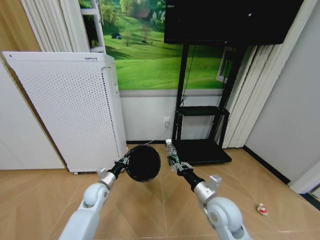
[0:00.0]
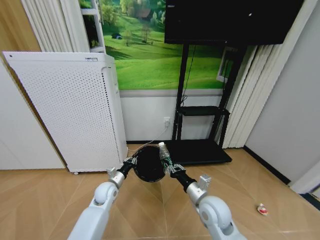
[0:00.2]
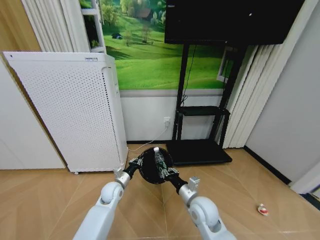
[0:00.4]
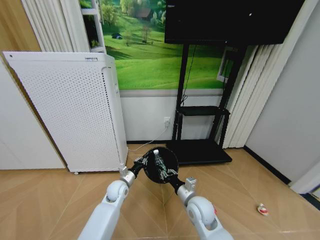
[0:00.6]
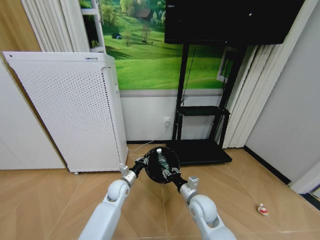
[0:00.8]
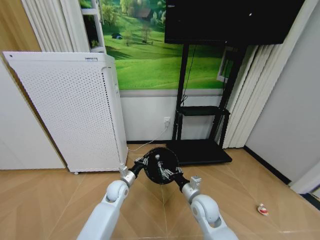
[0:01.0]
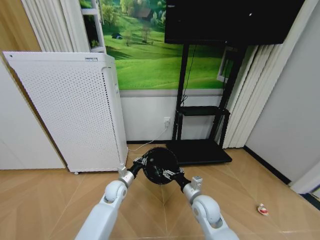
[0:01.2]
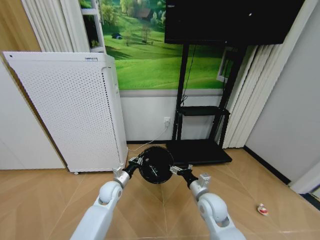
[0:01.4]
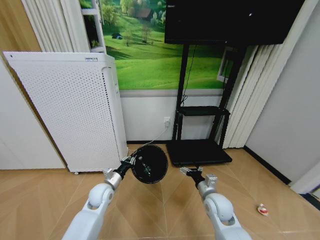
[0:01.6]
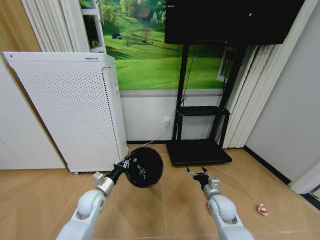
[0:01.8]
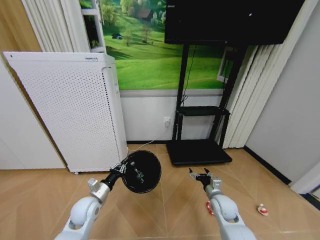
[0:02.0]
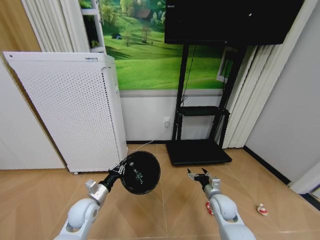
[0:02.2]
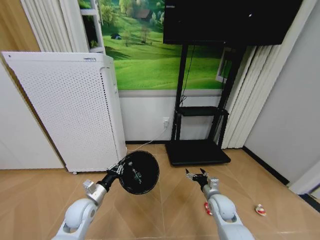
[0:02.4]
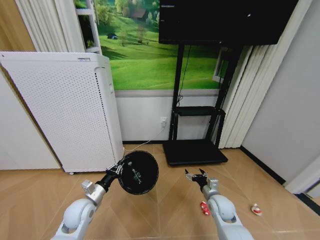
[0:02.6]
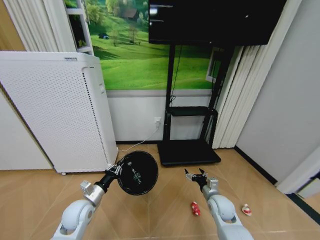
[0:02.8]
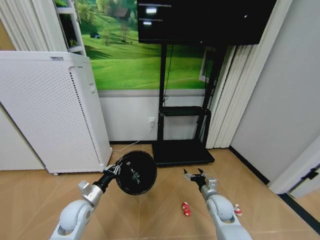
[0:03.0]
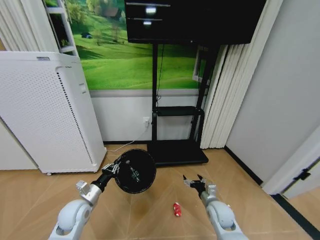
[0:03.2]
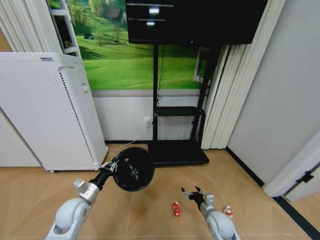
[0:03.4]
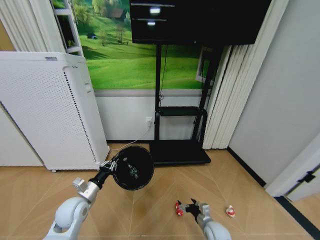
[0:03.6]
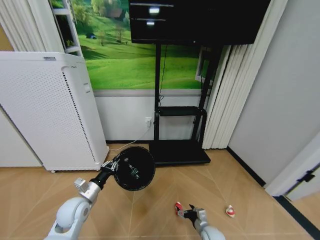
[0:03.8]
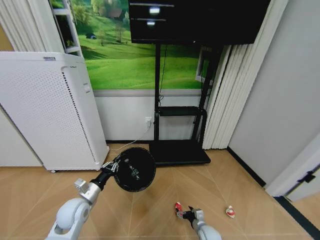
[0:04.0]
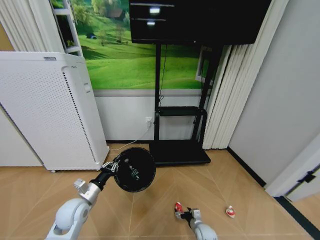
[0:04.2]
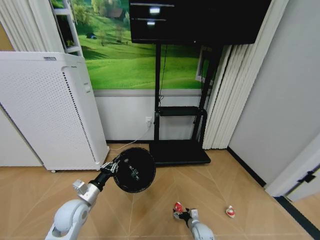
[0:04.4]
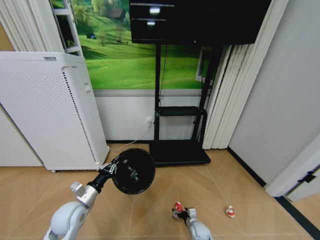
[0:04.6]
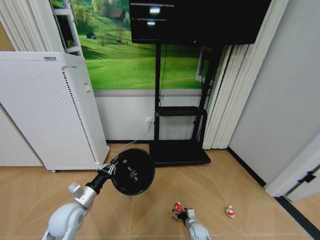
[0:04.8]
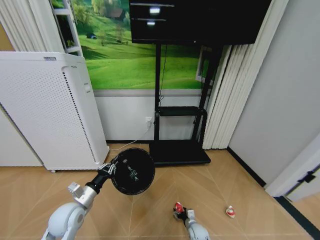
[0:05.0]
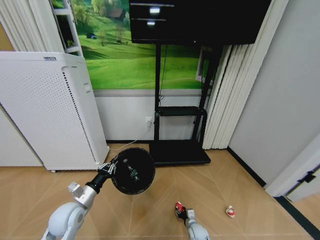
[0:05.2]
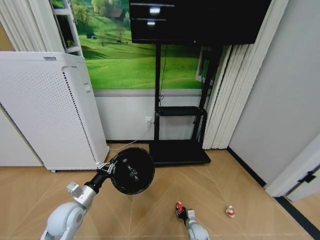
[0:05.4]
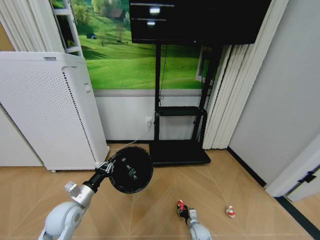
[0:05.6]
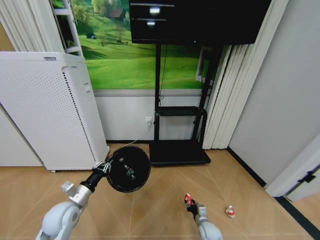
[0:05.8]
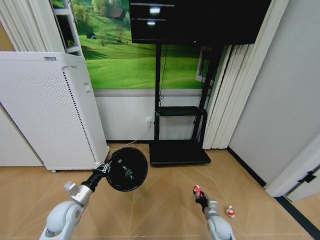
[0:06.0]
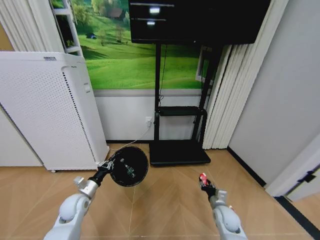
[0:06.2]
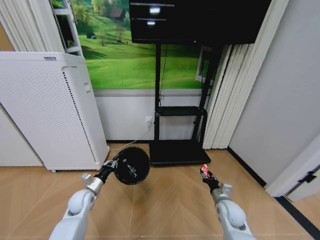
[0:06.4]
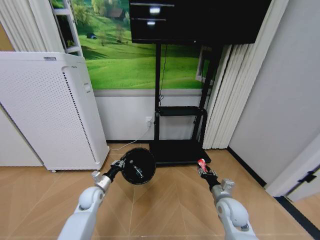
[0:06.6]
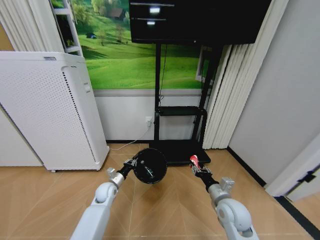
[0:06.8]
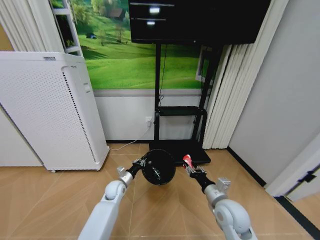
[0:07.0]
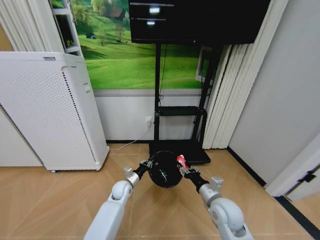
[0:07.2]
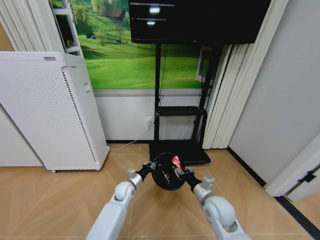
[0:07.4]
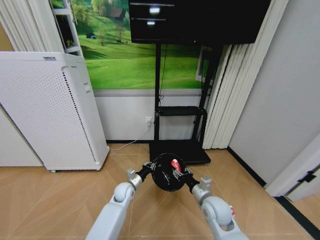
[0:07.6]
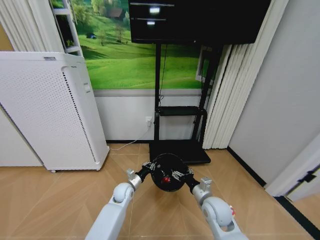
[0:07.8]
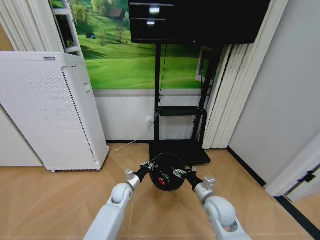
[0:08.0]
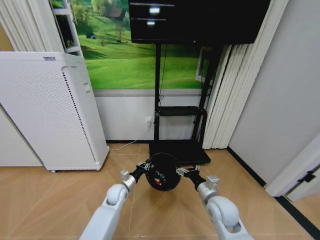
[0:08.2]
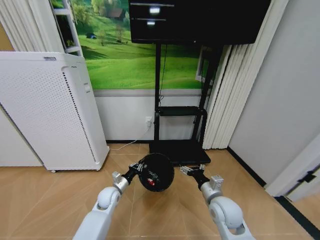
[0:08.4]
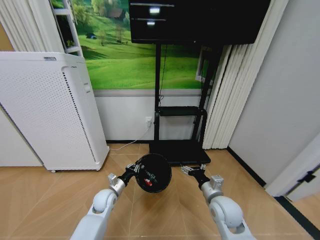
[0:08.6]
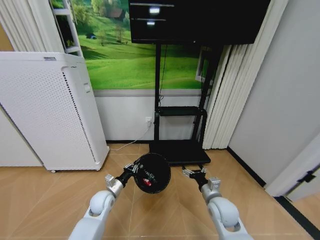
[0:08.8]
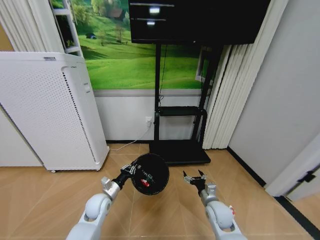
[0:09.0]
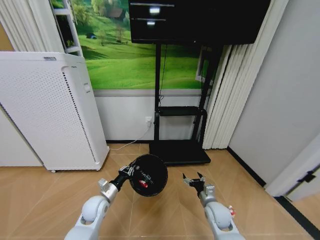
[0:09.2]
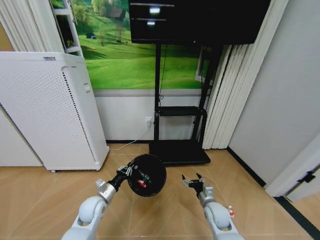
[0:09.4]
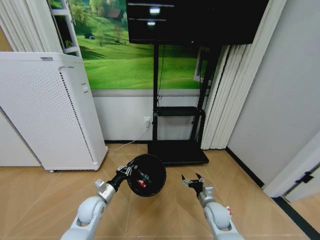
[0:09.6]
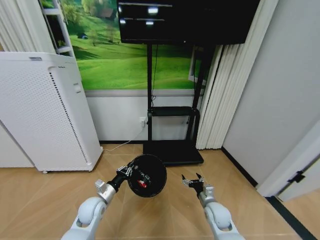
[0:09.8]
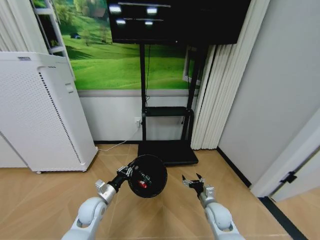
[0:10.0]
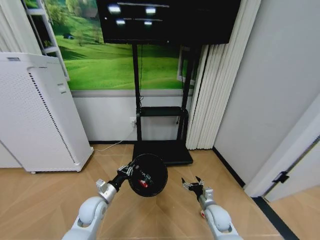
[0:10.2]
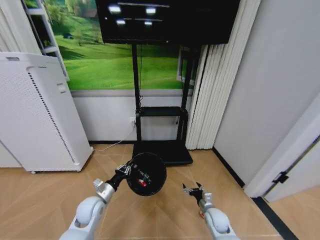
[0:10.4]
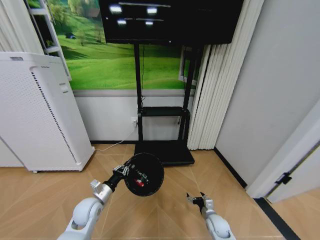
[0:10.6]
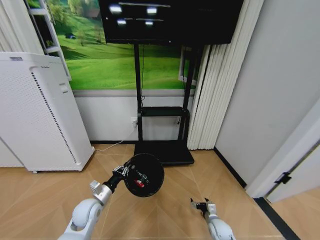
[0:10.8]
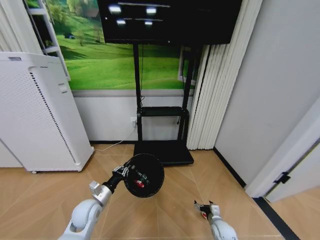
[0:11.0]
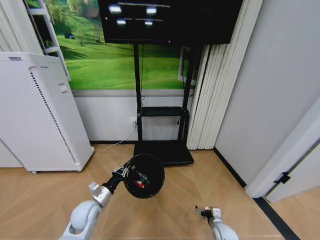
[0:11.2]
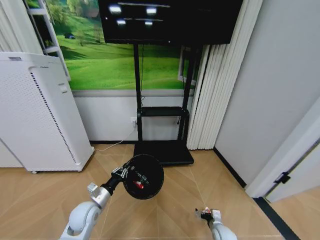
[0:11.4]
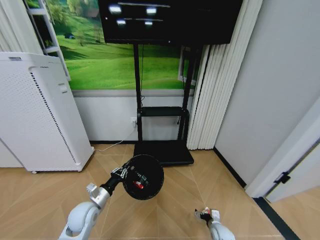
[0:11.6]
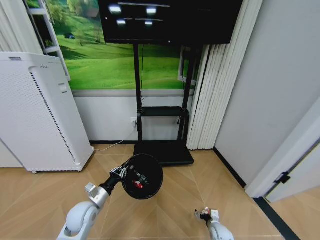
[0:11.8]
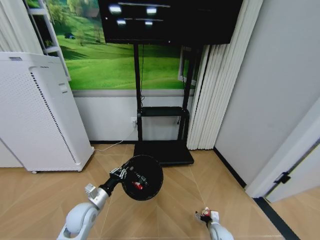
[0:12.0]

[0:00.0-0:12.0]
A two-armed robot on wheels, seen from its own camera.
Task of the whole recording: Pick up the trash bin and place the garbage on the floor into it.
0:00.0 to 0:01.6: The right gripper moves downward, some 5 cm, and opens up; the left gripper moves approximately 10 cm to the right and comes back.
0:01.6 to 0:03.0: The right gripper moves some 5 cm; the left gripper heads backward and to the left, covering about 10 cm.
0:03.0 to 0:04.4: The right gripper shifts about 20 cm downward.
0:04.4 to 0:06.0: The right gripper is displaced upward and to the right by about 10 cm, and closes.
0:06.0 to 0:07.6: The left gripper shifts some 25 cm to the right, forward and downward. The right gripper heads upward and to the left, covering roughly 20 cm.
0:07.6 to 0:09.0: The left gripper travels to the left and backward by approximately 10 cm; the right gripper shifts by roughly 5 cm, and opens its fingers.
0:09.0 to 0:10.4: The right gripper shifts some 10 cm downward.
0:10.4 to 0:12.0: The right gripper shifts roughly 10 cm downward.

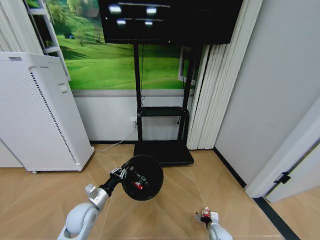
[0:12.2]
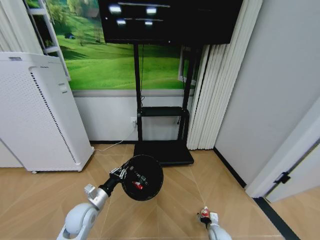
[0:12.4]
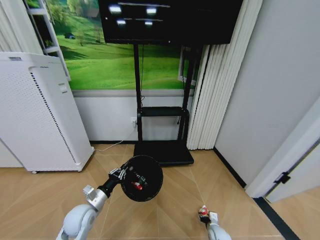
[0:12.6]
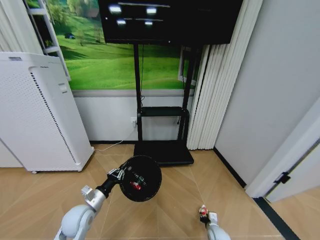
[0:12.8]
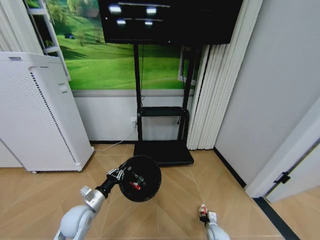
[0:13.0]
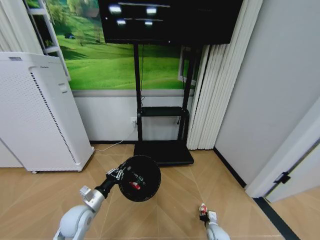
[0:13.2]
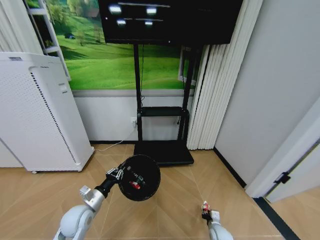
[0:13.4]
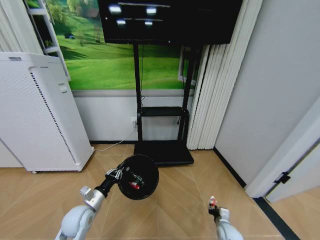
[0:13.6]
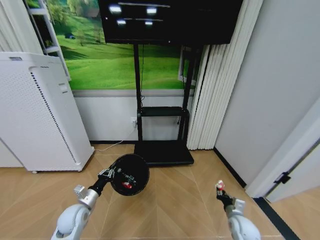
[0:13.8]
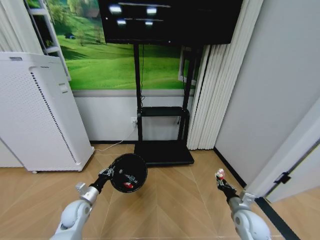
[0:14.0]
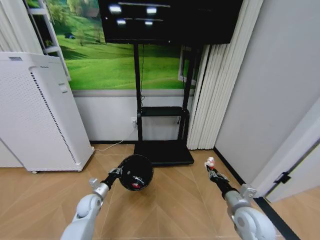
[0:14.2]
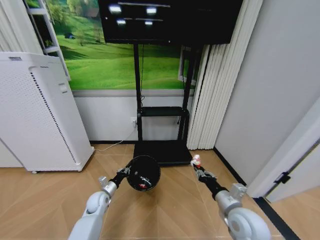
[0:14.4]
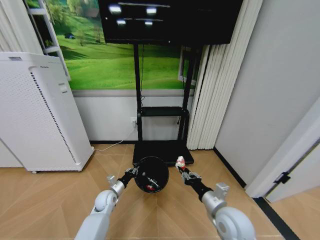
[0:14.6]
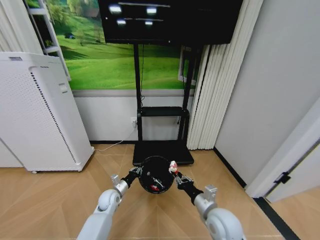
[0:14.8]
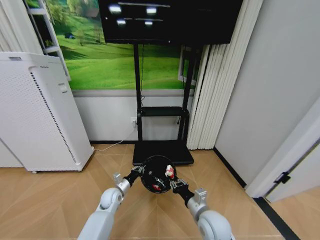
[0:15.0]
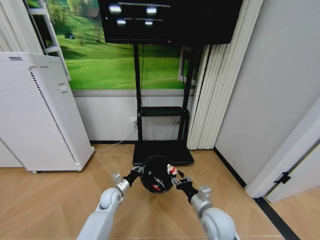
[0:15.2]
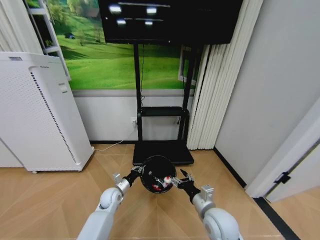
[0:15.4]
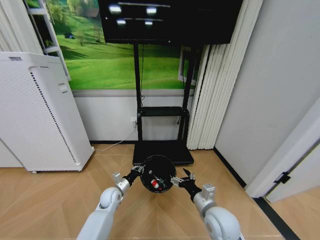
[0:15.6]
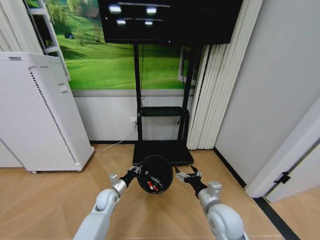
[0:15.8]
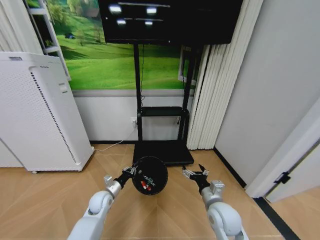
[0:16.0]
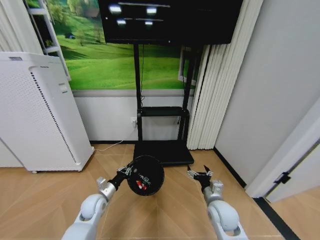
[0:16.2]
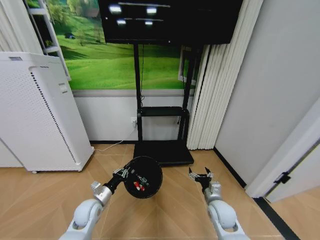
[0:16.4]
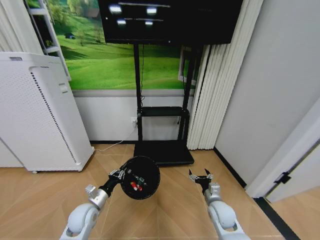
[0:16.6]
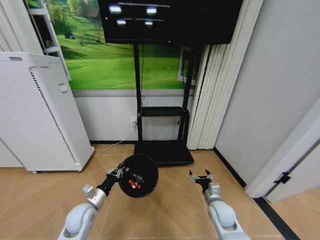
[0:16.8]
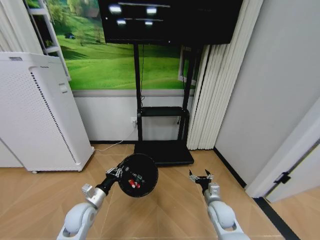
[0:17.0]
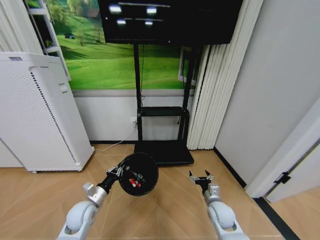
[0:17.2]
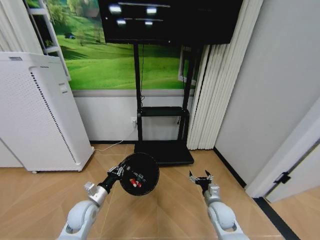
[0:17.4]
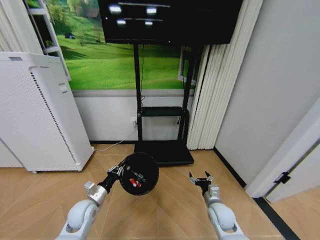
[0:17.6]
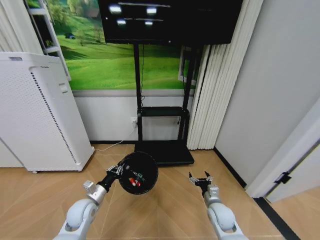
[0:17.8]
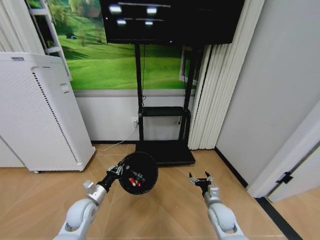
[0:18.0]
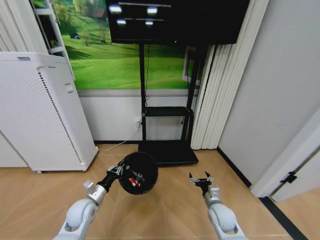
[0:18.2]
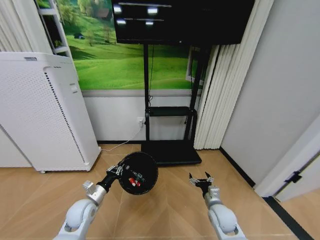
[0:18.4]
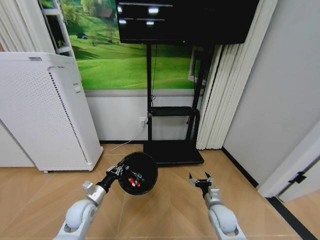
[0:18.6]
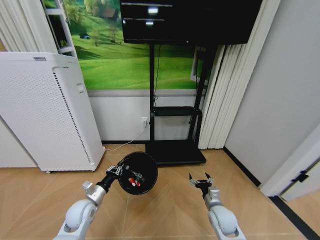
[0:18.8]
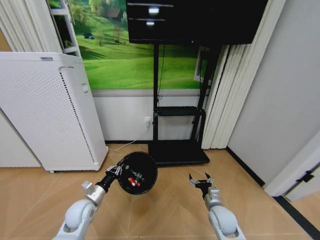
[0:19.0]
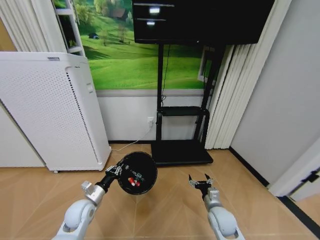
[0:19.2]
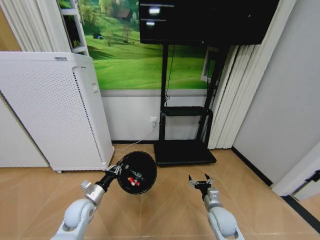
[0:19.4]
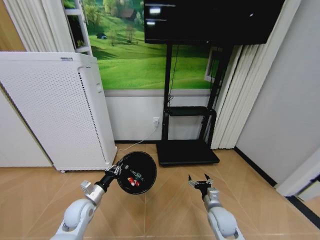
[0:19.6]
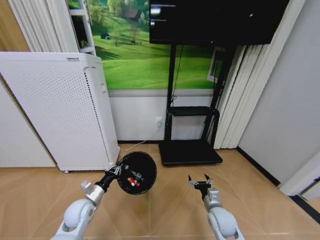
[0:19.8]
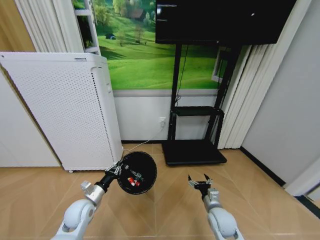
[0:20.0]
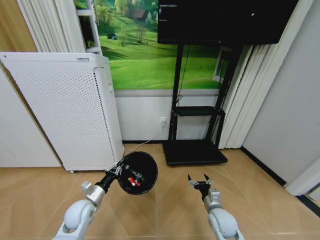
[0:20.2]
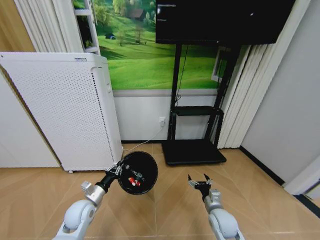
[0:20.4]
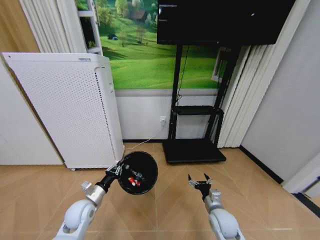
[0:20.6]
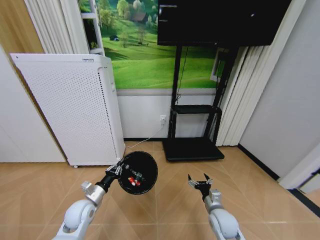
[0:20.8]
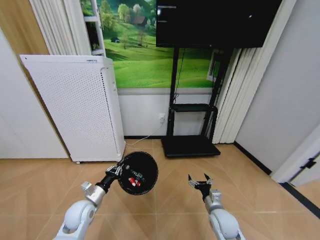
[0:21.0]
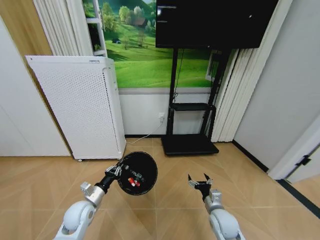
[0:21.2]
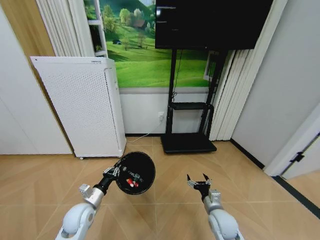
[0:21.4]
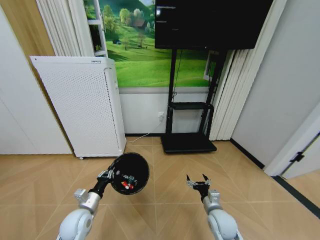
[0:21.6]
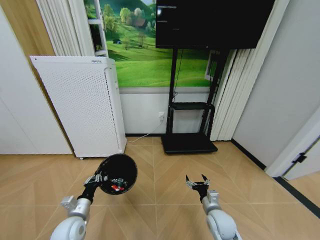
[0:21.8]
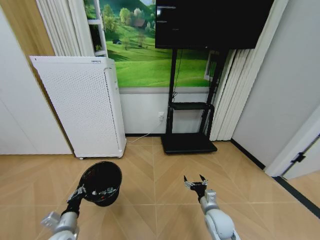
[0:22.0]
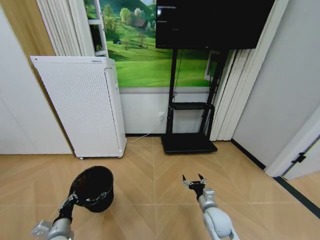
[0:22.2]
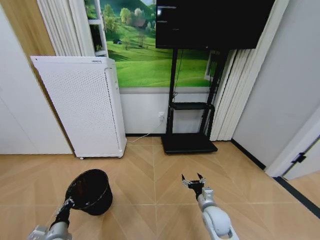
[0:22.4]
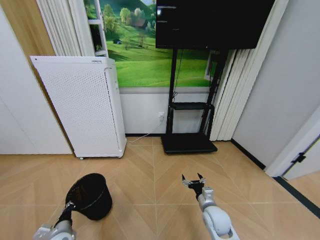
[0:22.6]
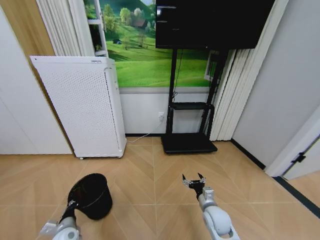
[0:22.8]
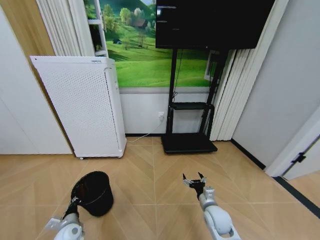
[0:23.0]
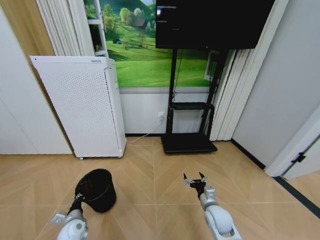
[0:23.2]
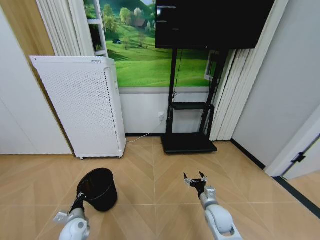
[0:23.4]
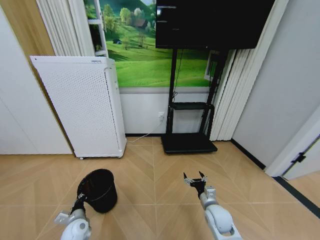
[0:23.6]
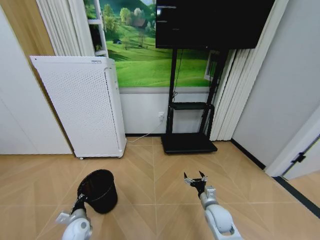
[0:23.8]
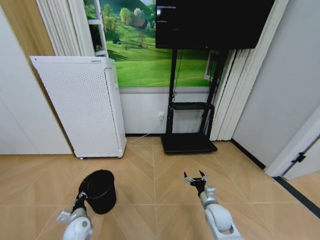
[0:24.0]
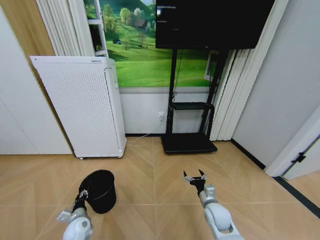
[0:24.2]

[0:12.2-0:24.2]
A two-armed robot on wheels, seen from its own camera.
Task of the whole recording: Pick up the trash bin and place the garbage on the floor into it.
0:12.2 to 0:13.8: The right gripper travels upward by some 10 cm, and closes.
0:13.8 to 0:15.2: The right gripper moves to the left and upward, some 25 cm. Meanwhile the left gripper moves to the right, forward and downward, roughly 15 cm.
0:15.2 to 0:16.6: The right gripper moves to the right, downward and forward, roughly 10 cm, and opens up. The left gripper moves backward, to the left and upward, approximately 15 cm.
0:16.6 to 0:18.2: The grippers make only small movements.
0:21.2 to 0:22.6: The left gripper travels downward, backward and to the left by approximately 15 cm.
0:22.6 to 0:24.2: The left gripper is displaced forward by roughly 5 cm, and opens its fingers.
